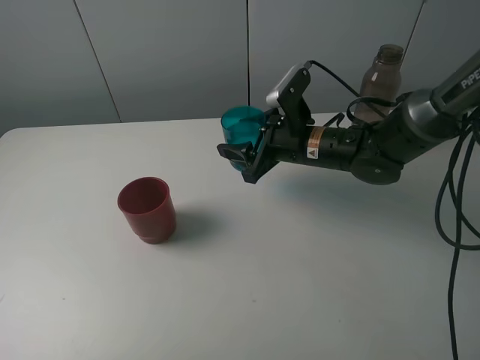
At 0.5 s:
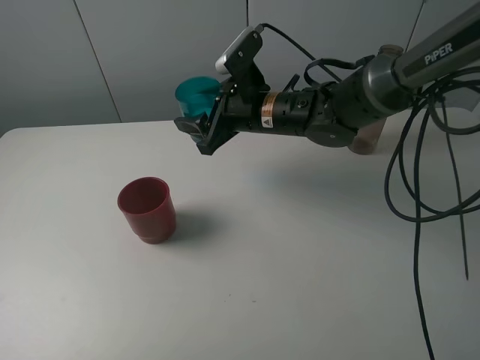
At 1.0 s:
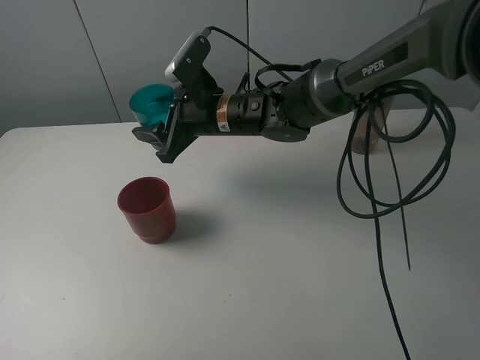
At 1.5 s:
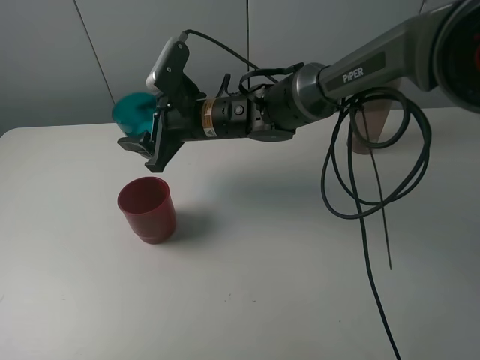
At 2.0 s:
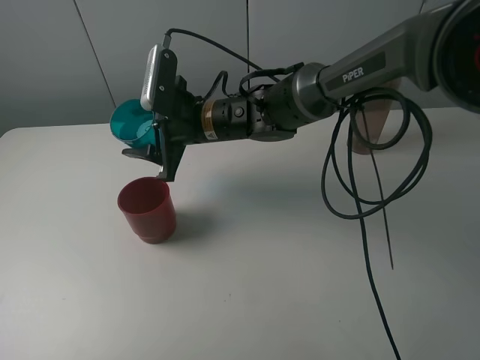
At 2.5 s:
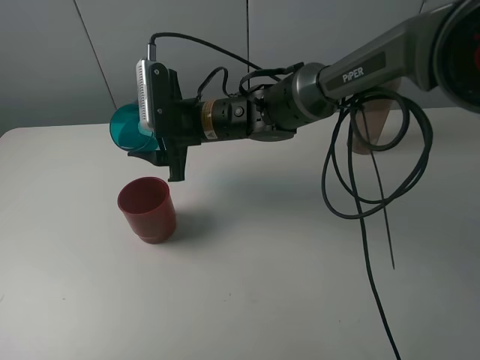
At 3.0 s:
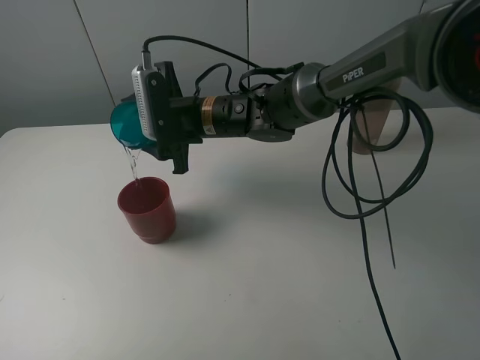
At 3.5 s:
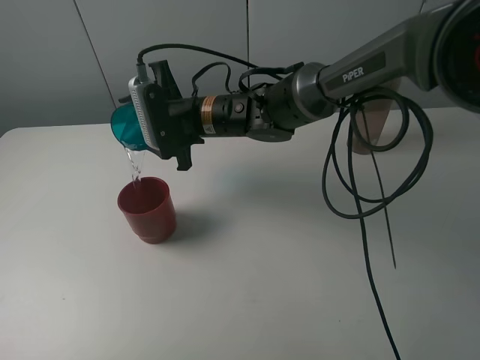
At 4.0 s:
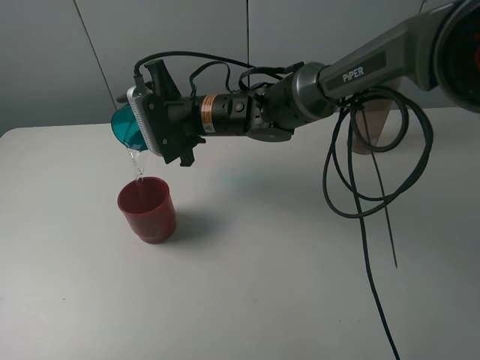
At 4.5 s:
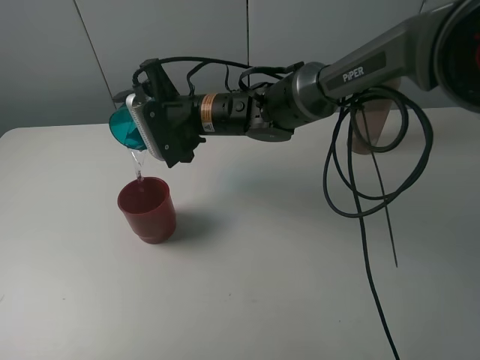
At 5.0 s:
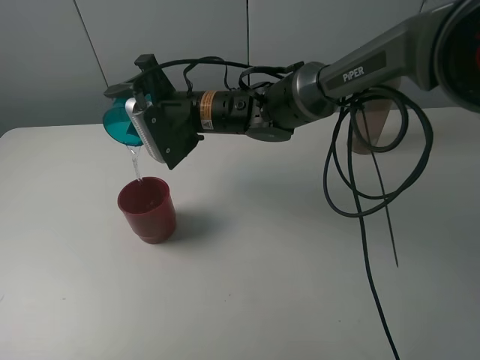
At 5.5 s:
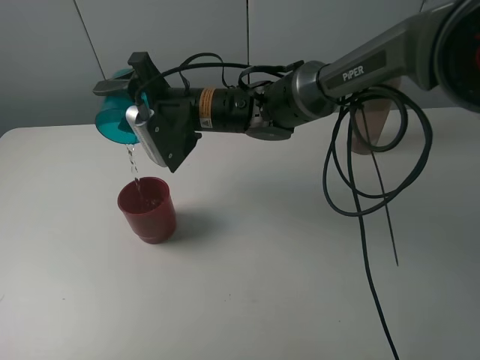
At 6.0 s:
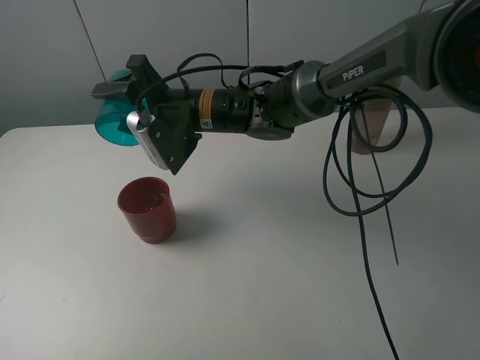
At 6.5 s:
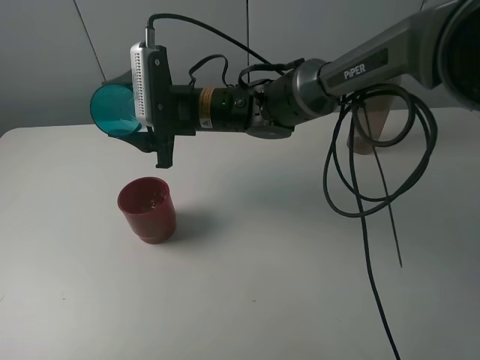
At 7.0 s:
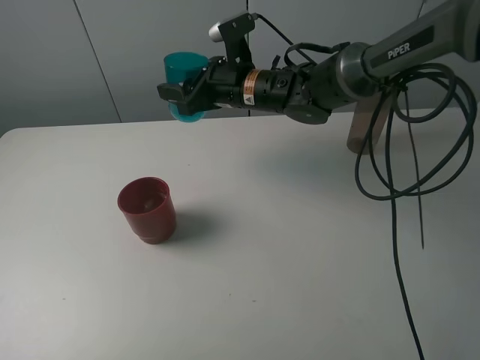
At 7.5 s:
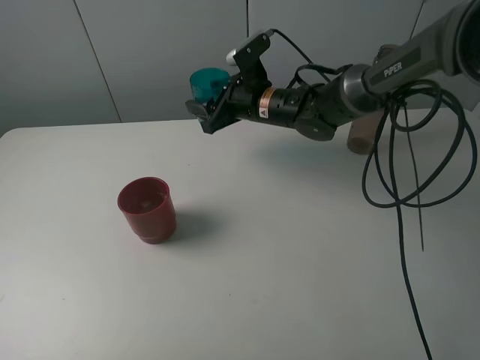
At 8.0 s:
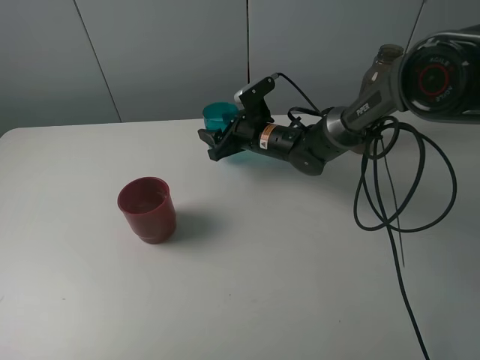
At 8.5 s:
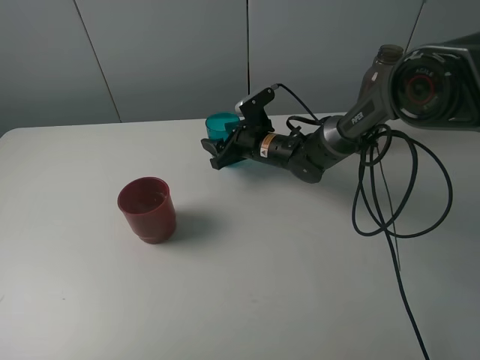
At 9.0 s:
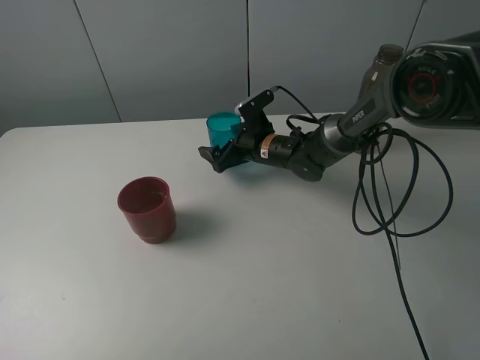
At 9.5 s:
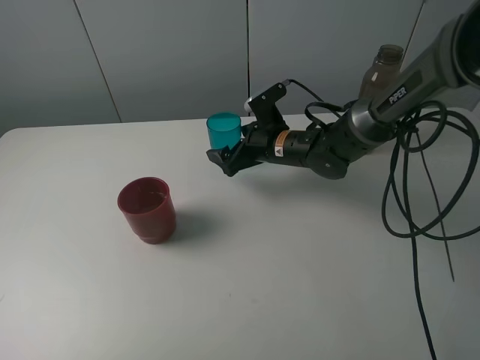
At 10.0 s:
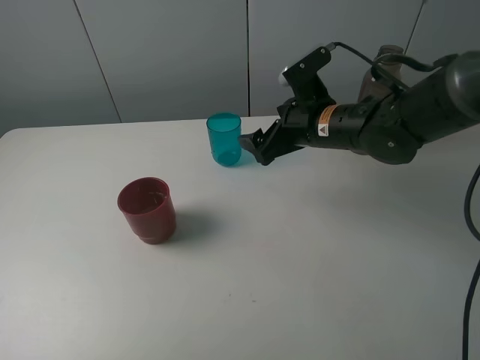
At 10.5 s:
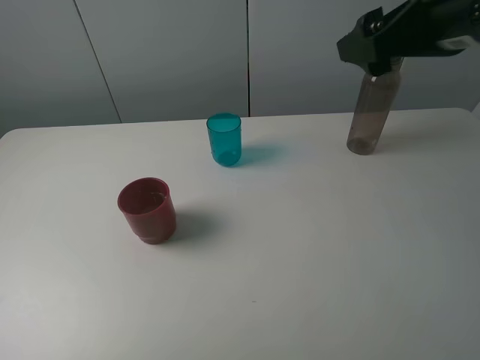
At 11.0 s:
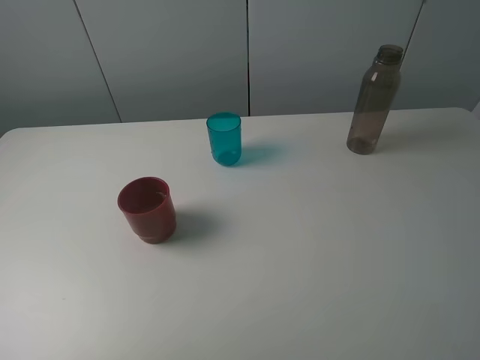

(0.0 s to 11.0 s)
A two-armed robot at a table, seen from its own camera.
Task of the whole recording: pick up the bottle and pour water into the cup, then pick up the cup containing water and pour it into another cup.
Step, 0.0 s - 6.0 s: Pour water from blue cup to red cup with the right gripper.
Step, 6.5 s - 9.0 s: Place the blue cup with the right gripper.
0.0 s - 2.0 s: The right gripper goes about 15 cm to the left.
5.5 s - 7.5 s: The right gripper heads to the right and forward, covering some 10 cm.
7.5 s - 9.0 s: The right gripper goes some 10 cm downward, and opens up.
9.0 s - 11.0 s: The right gripper travels backward, upward and to the right by approximately 50 cm.

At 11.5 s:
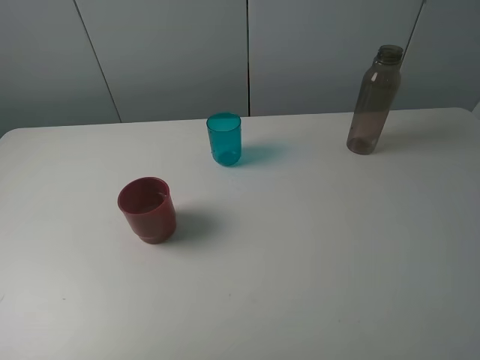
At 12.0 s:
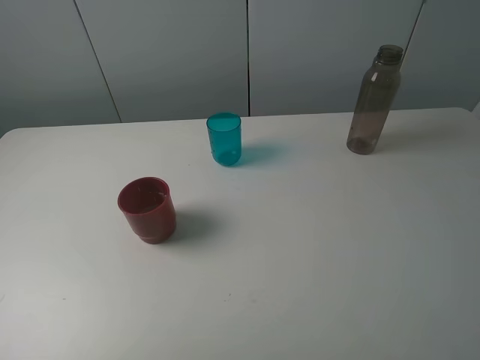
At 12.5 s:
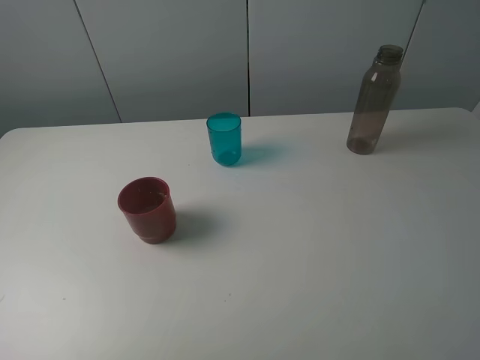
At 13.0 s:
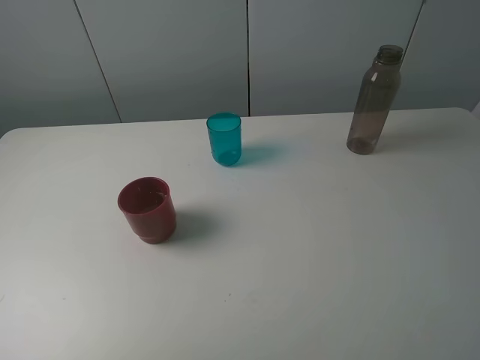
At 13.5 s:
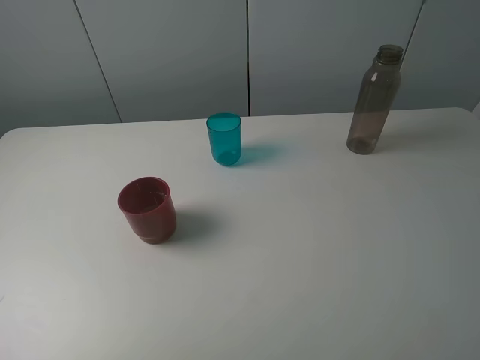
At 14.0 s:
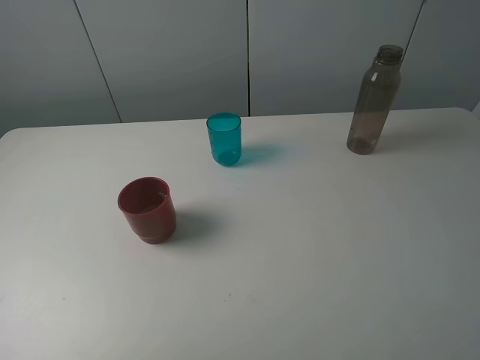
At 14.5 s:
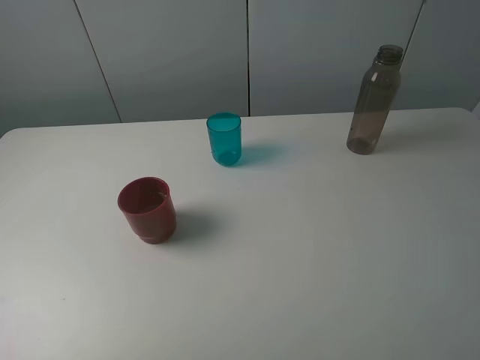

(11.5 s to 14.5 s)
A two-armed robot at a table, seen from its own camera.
Task of the whole recording: pick up the bottle and pour water into the cup, then pick up the cup containing water and pour it into another cup.
13.0 s - 14.5 s: The two grippers keep their place.
